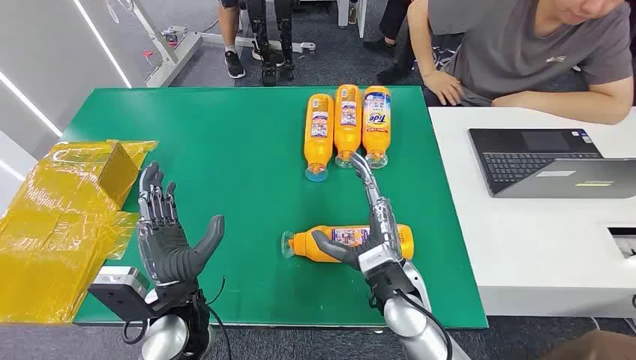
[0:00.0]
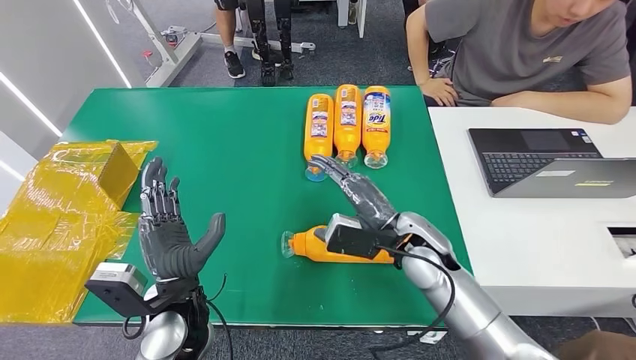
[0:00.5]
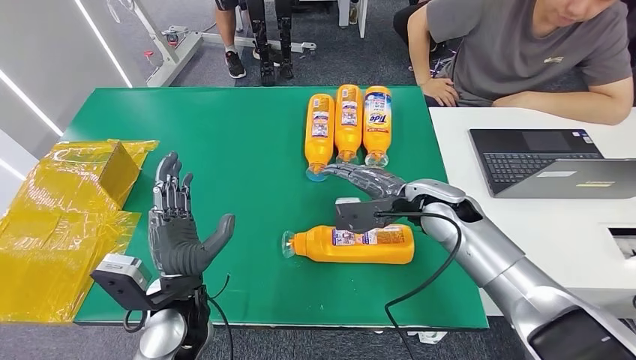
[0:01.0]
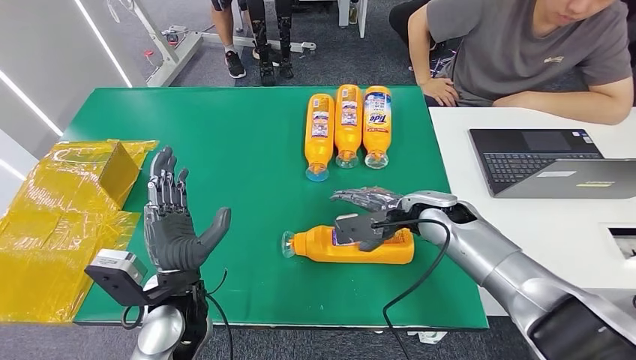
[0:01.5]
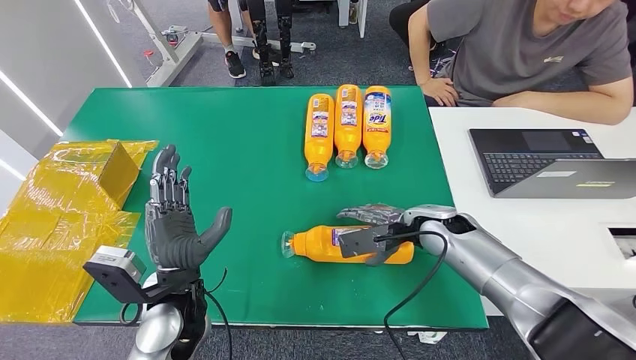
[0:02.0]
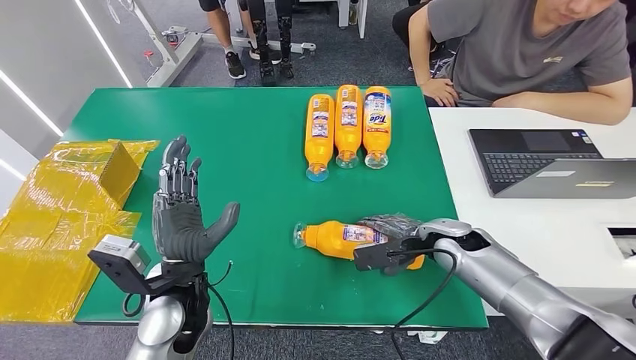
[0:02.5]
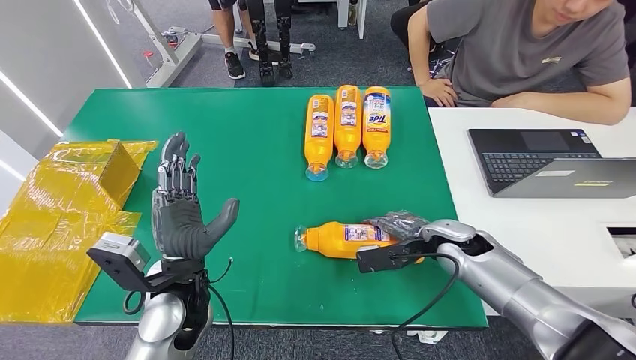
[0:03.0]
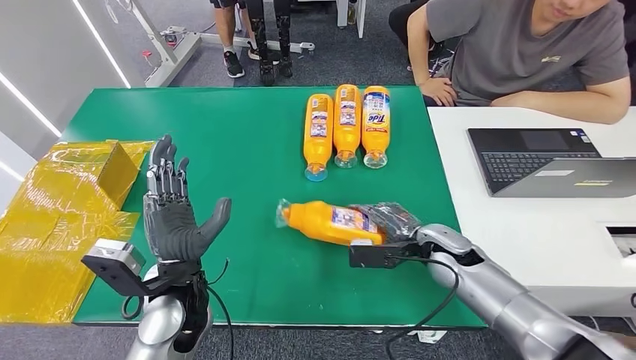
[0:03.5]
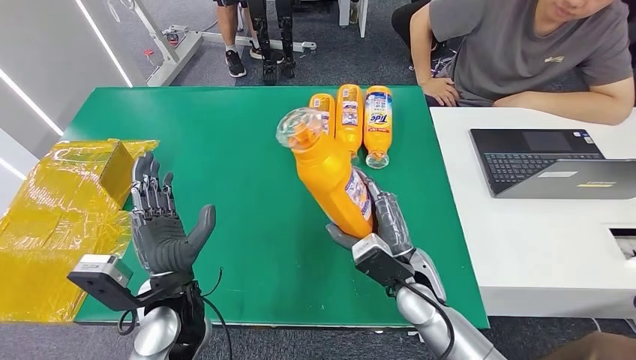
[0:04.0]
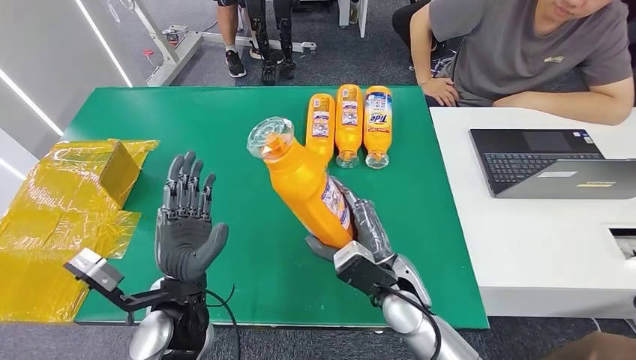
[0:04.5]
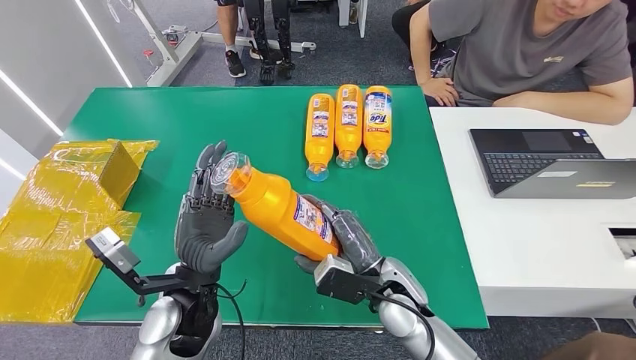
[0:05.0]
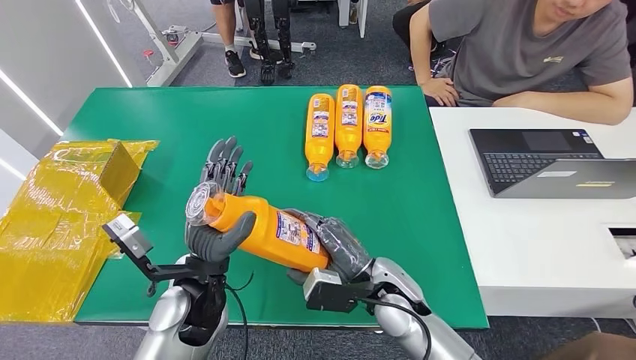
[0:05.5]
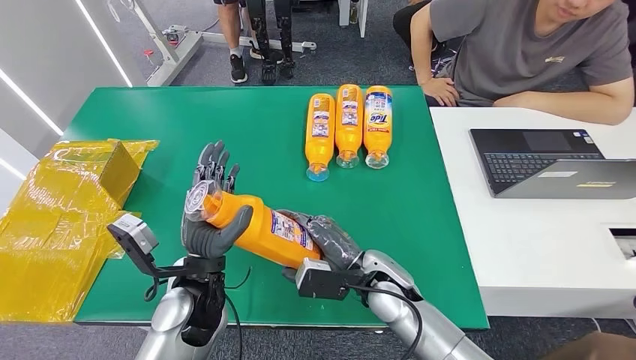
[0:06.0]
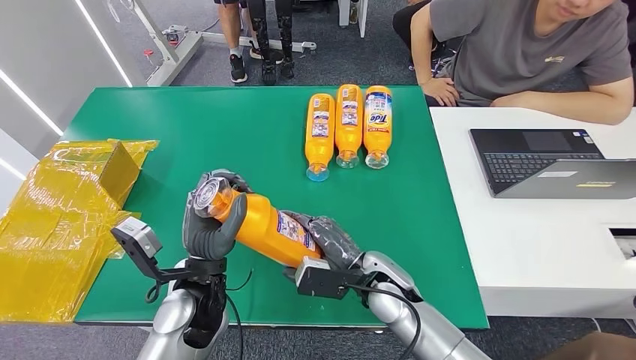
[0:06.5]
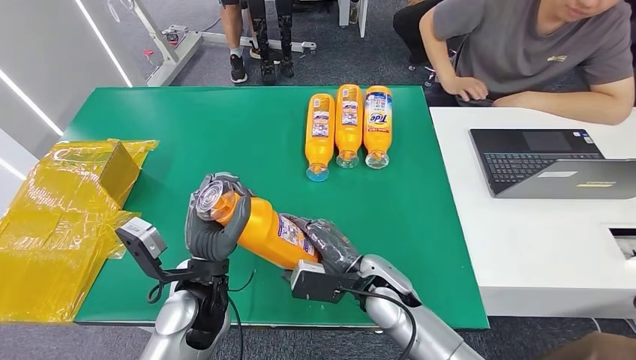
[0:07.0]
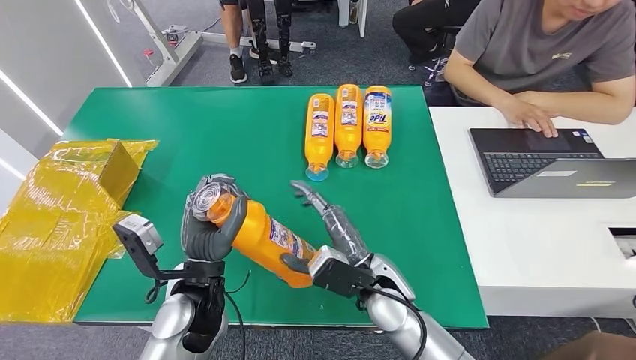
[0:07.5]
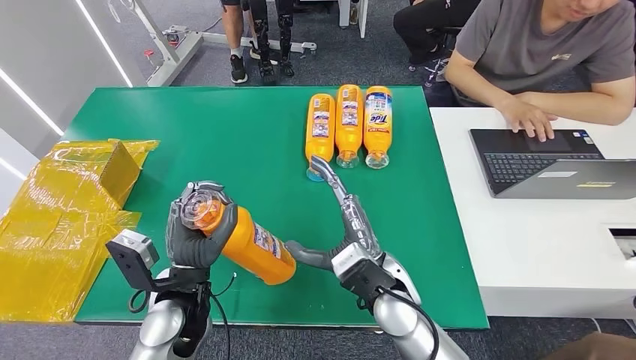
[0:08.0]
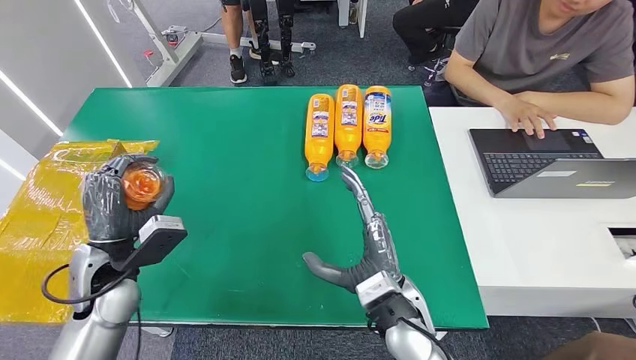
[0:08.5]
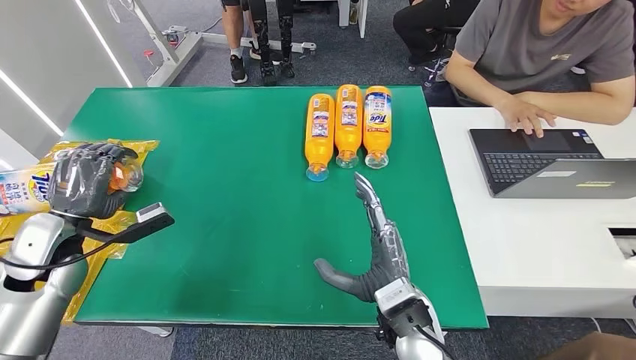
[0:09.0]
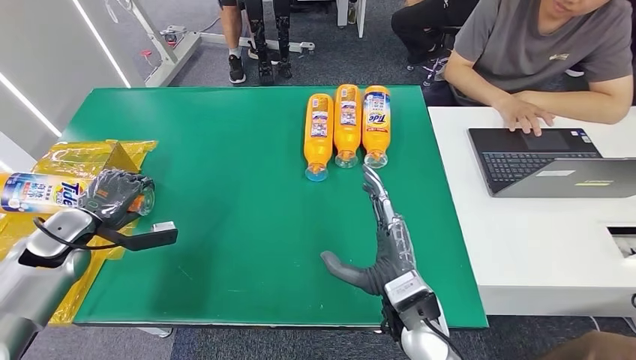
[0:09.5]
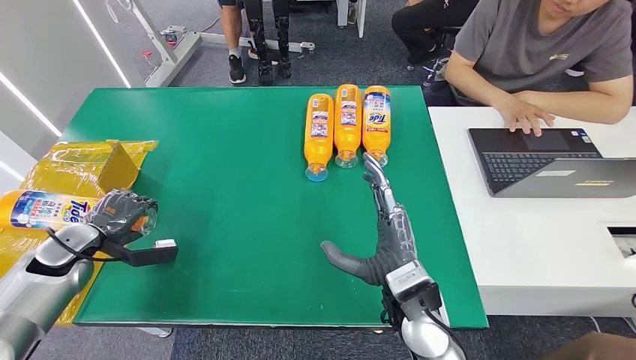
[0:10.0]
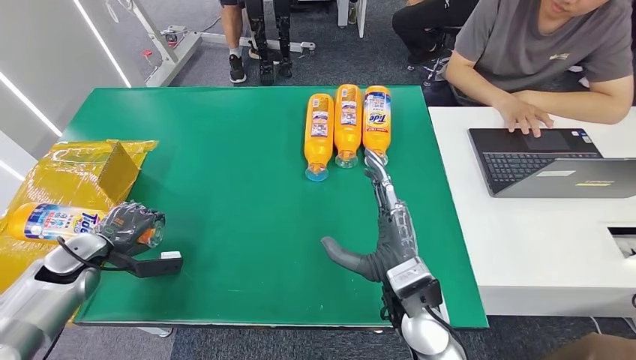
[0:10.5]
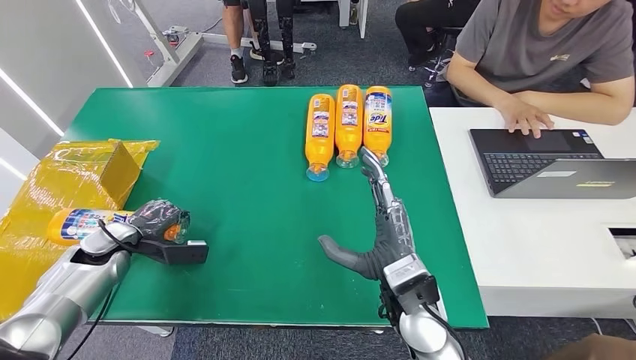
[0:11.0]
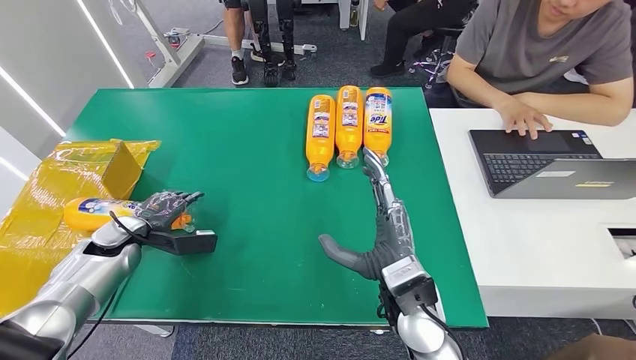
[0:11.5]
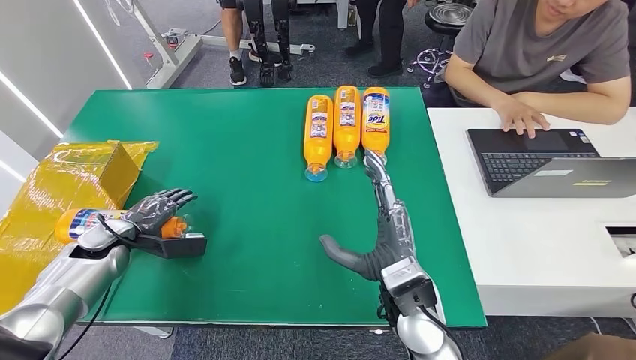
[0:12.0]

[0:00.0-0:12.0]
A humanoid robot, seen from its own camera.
Step, 0:00.0 to 0:05.0: Pick up the bottle from the table.
0:02.0 to 0:04.0: The right hand heads backward and to the left, covering some 10 cm.
0:04.0 to 0:06.0: The right hand shifts some 5 cm to the left.
0:10.0 to 0:12.0: The left hand moves approximately 5 cm.

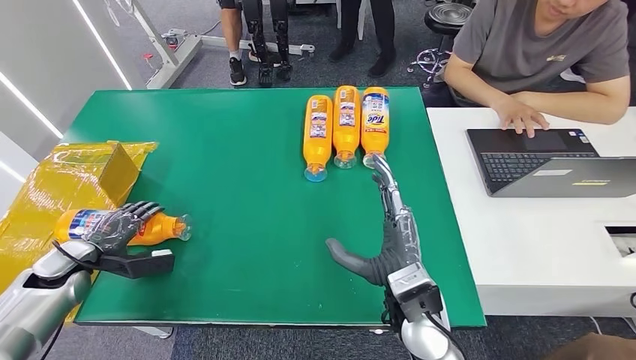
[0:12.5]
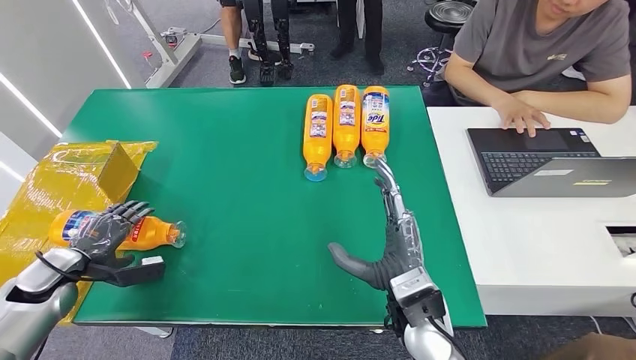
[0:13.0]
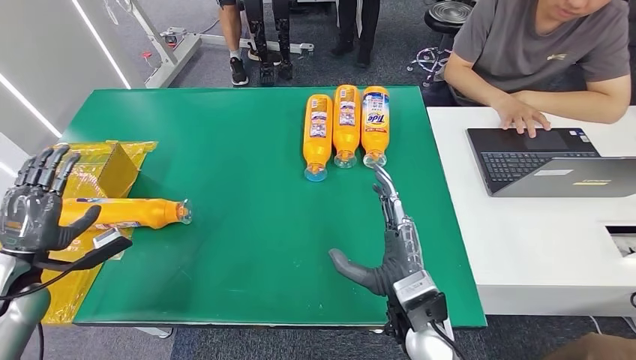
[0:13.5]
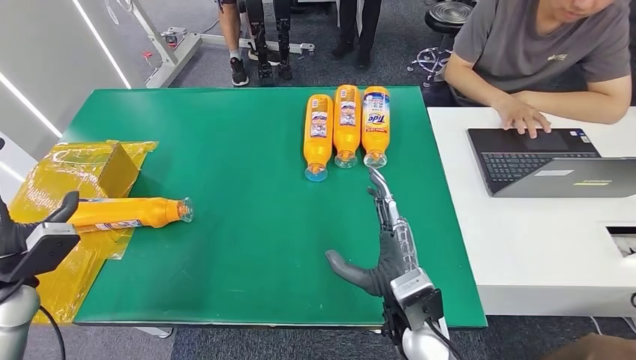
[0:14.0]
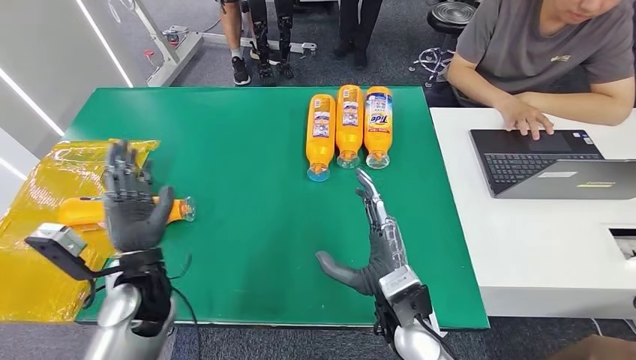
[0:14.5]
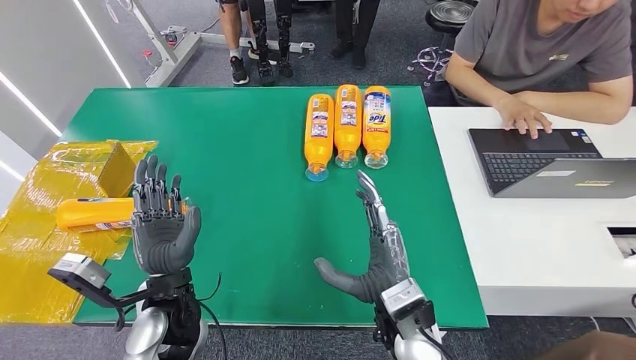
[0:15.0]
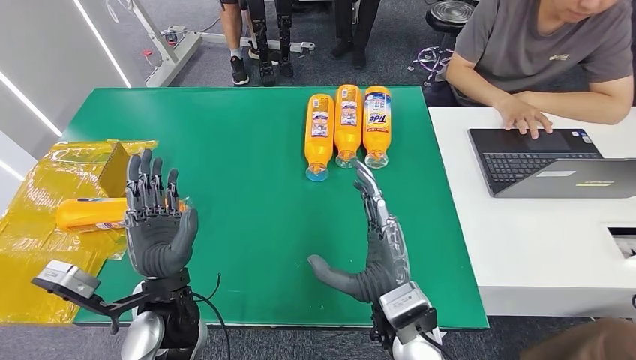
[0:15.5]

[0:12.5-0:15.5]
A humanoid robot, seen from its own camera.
Step, 0:12.5 to 0:15.5: Turn the bottle to the front side.
0:12.5 to 0:14.0: The left hand is displaced upward and backward by roughly 10 cm.
0:14.0 to 0:15.5: The left hand goes some 25 cm to the right.
